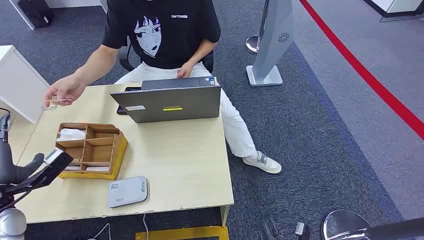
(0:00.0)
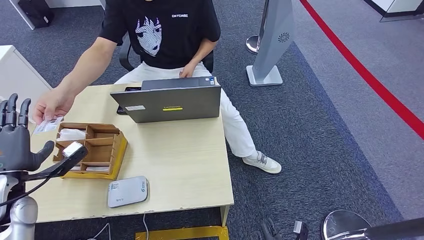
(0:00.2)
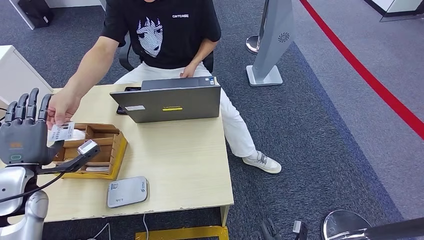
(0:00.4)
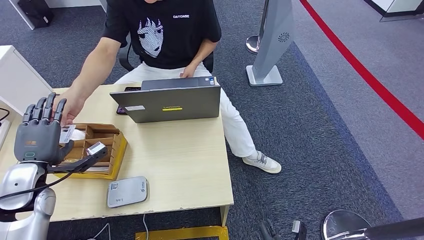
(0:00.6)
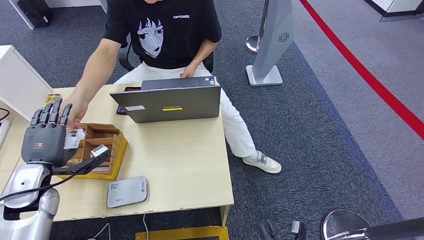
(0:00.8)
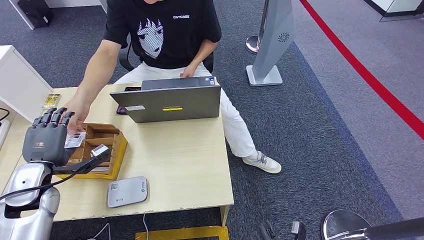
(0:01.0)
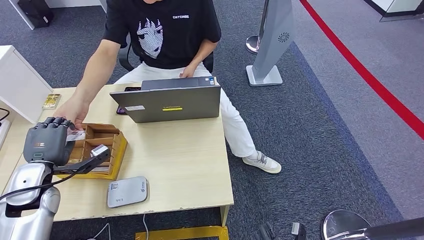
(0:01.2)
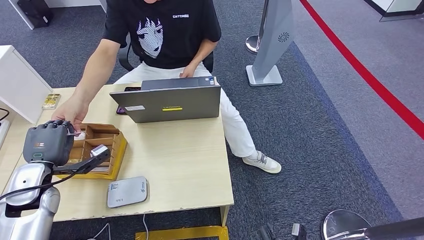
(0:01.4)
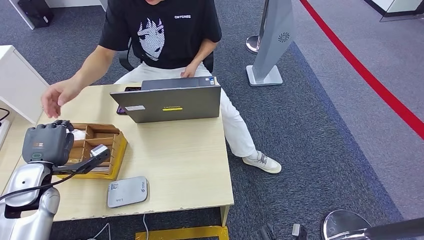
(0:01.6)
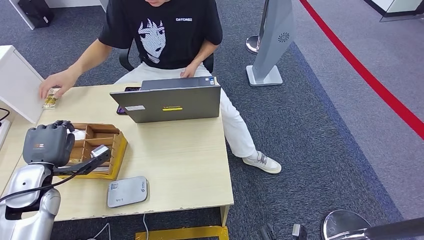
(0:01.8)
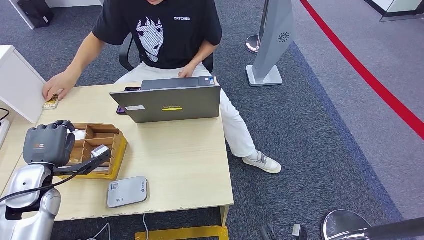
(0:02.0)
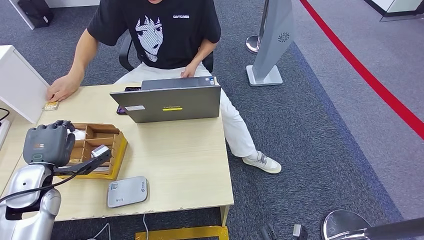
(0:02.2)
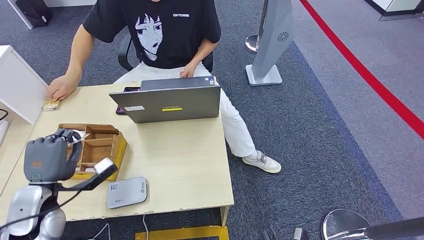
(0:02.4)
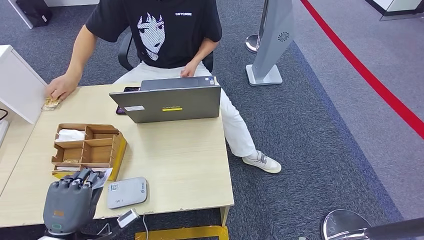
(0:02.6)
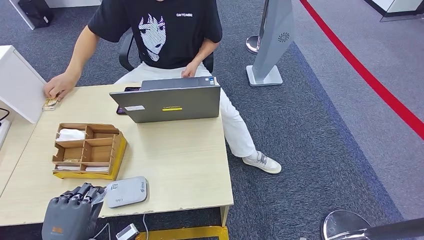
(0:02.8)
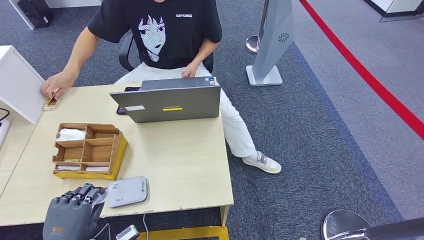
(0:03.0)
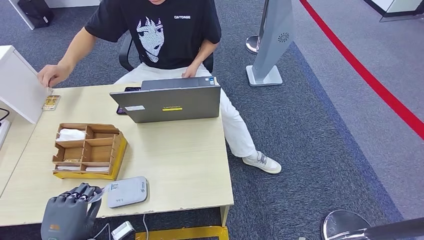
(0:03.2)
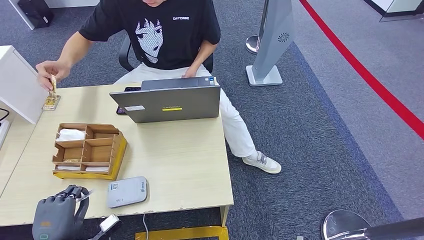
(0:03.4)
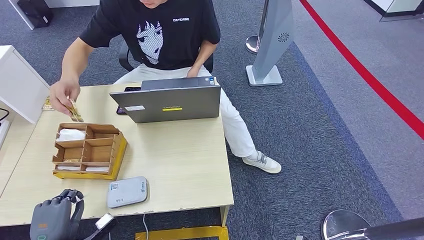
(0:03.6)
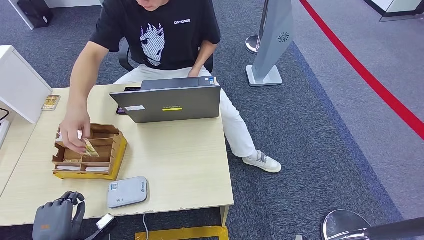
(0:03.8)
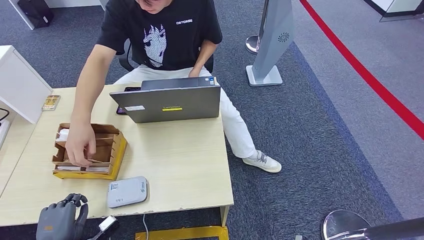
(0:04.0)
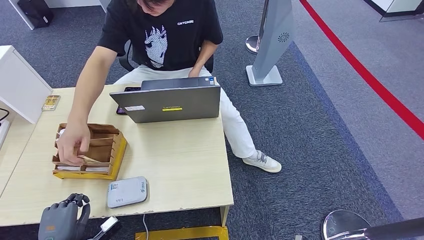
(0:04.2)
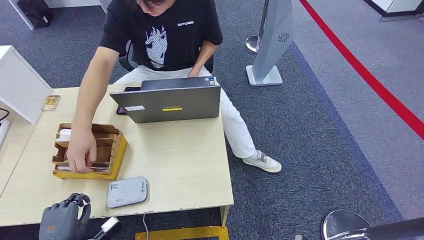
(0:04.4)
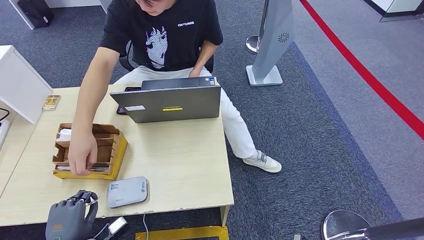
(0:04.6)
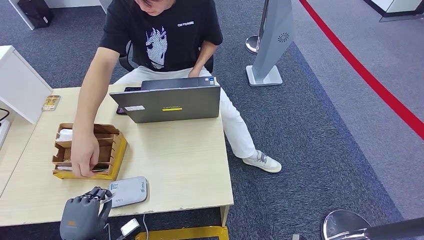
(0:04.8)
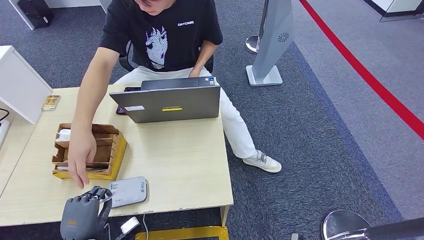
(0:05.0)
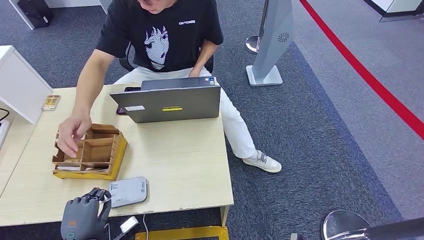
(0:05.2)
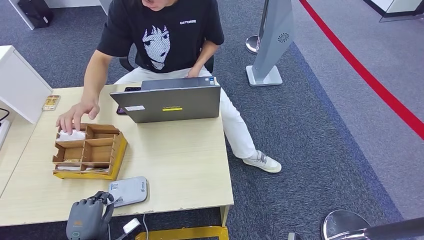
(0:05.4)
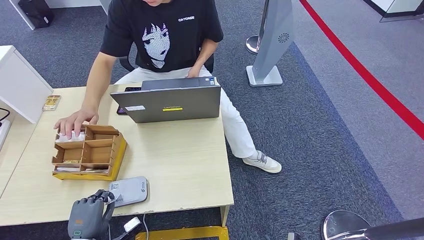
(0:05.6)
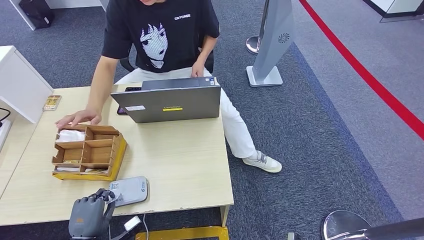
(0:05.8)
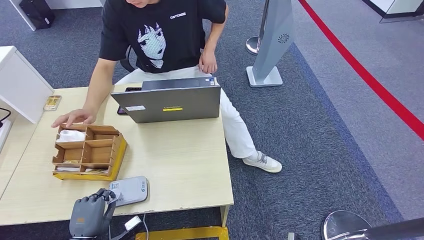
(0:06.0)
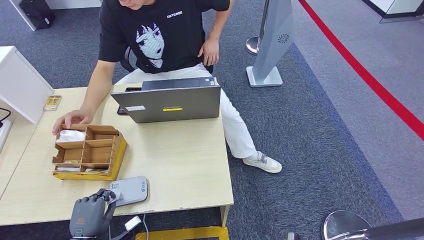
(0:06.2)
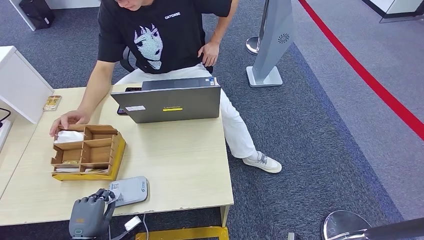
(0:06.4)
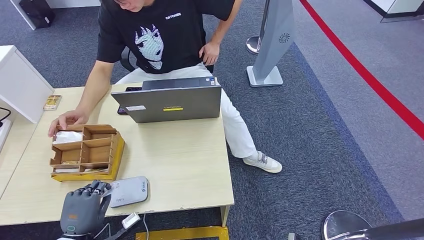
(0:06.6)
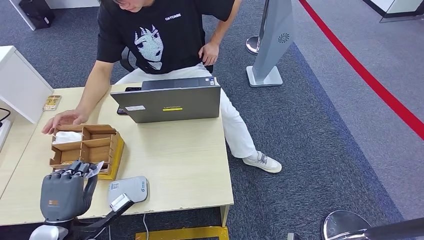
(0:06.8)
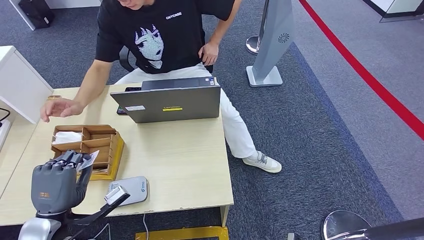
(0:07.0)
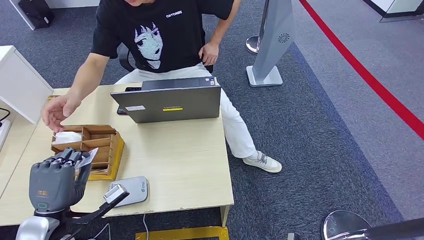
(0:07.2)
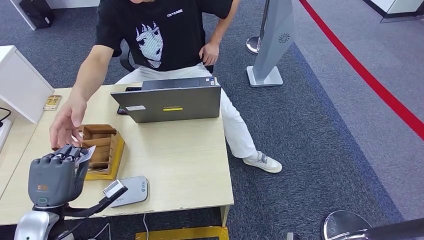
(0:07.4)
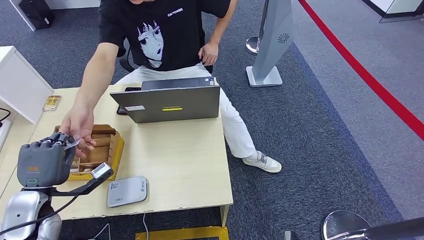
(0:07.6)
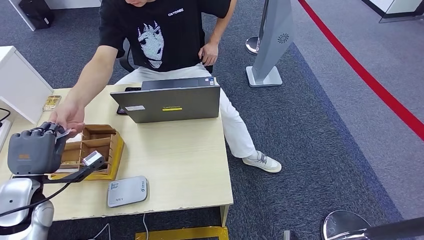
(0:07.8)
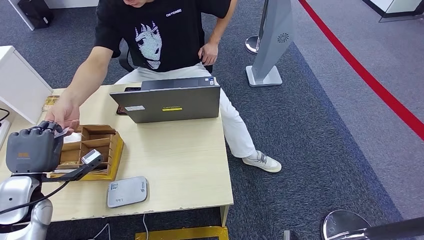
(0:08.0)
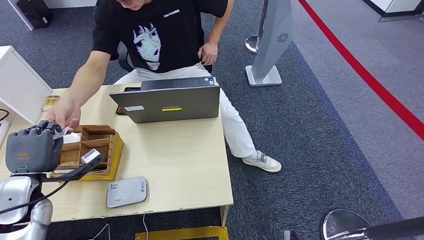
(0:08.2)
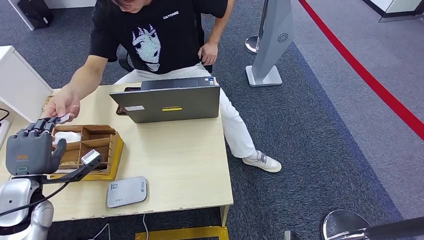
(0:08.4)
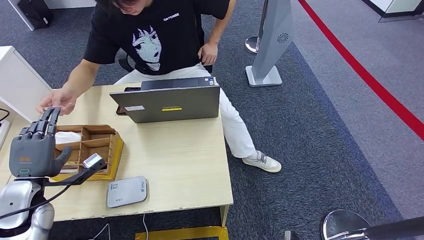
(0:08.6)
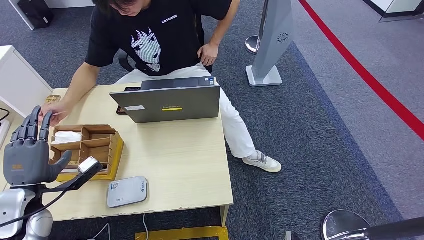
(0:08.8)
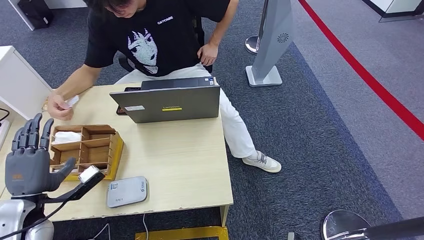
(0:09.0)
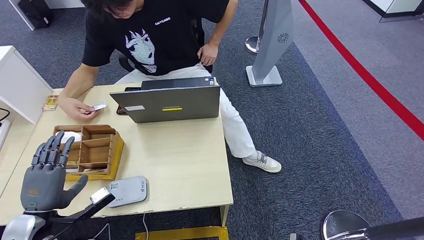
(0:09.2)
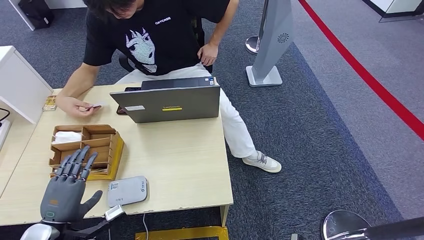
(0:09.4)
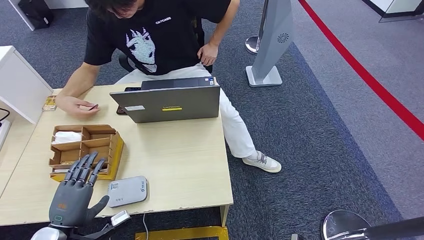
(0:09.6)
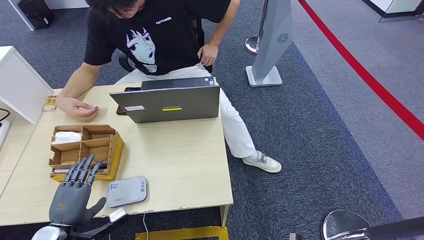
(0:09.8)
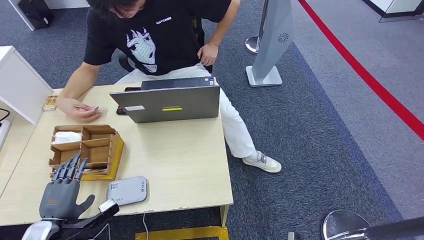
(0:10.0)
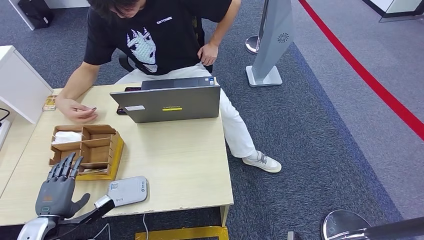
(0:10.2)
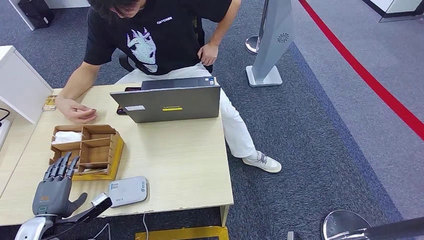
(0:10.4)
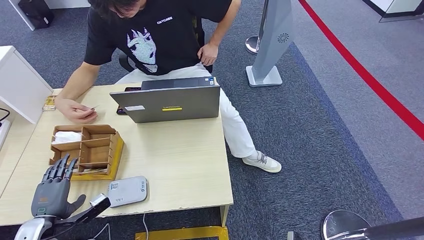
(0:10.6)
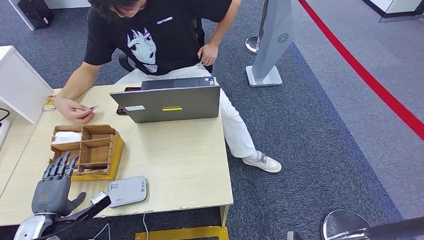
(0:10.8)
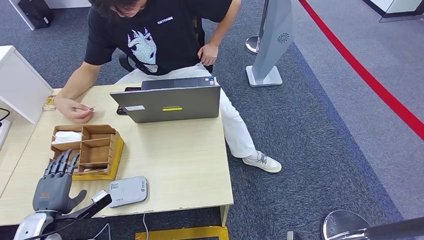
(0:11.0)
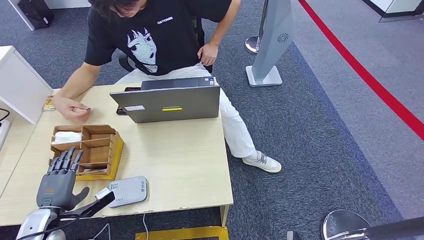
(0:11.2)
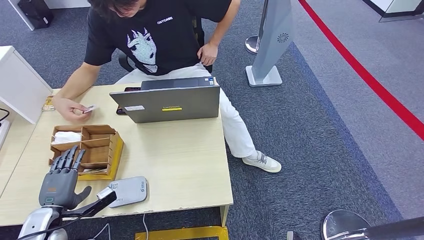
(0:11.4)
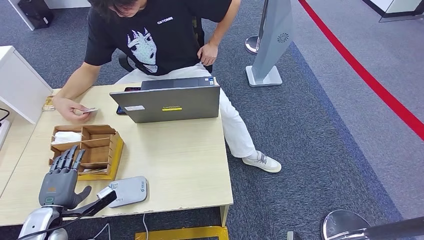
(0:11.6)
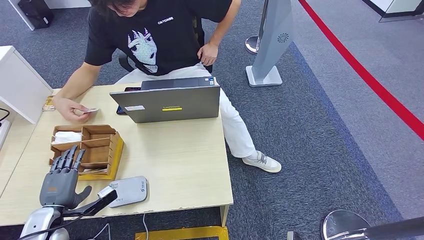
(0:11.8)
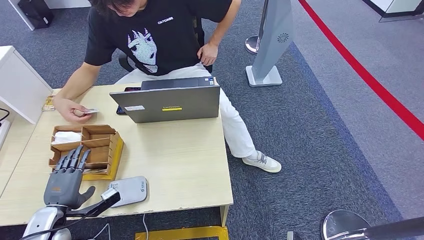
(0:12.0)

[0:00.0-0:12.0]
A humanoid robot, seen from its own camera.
Step, 0:00.0 to 0:02.6: Take the ID card from the person's hand.
Step, 0:02.8 to 0:06.4: Place the ID card on the card reader.
Step, 0:06.6 to 0:09.4: Hand the ID card to the person.
0:01.6 to 0:03.0: The left hand goes some 20 cm backward and to the right.
0:03.0 to 0:04.4: The left hand shifts about 10 cm downward and to the left.
0:04.4 to 0:06.0: The left hand changes place by about 5 cm.
0:06.0 to 0:07.6: The left hand shifts roughly 20 cm upward and forward.
0:07.6 to 0:09.0: The hands stay close to where they were, moving slightly.
0:09.0 to 0:10.4: The left hand travels downward by some 10 cm.
0:10.4 to 0:12.0: The hands move only a little.

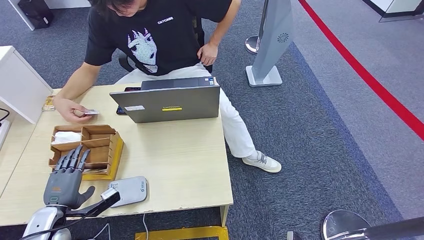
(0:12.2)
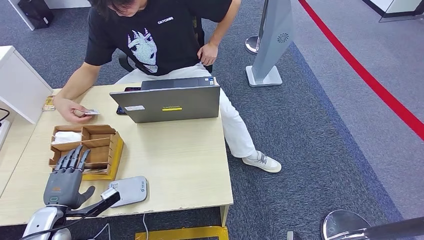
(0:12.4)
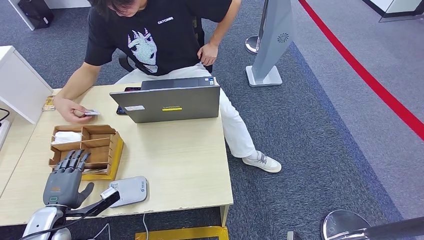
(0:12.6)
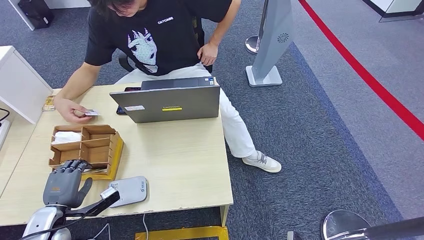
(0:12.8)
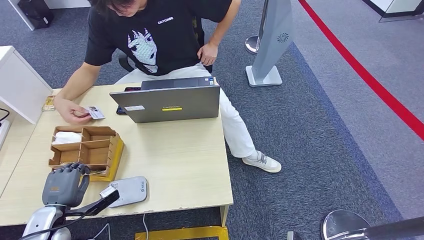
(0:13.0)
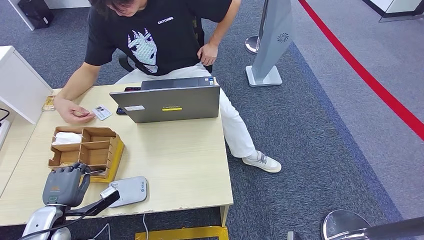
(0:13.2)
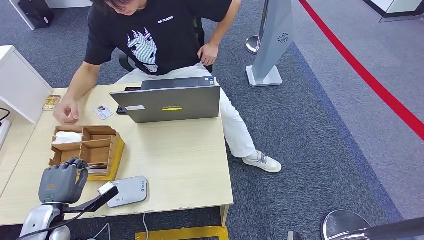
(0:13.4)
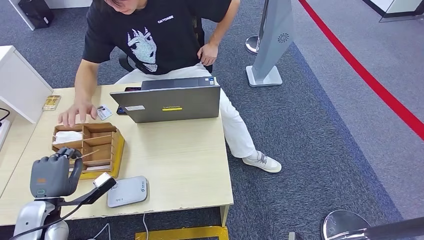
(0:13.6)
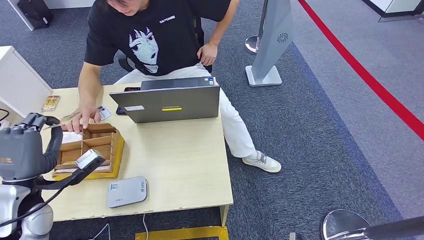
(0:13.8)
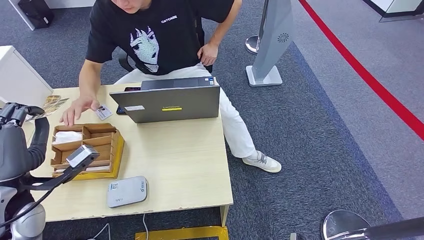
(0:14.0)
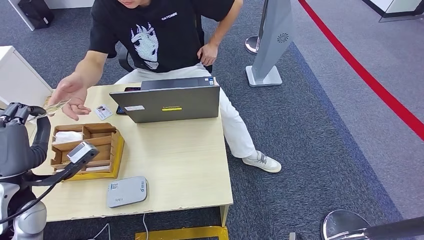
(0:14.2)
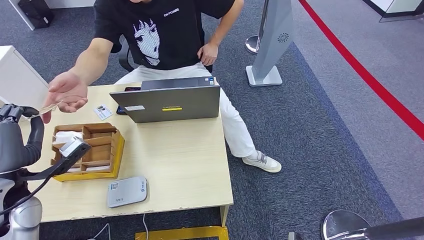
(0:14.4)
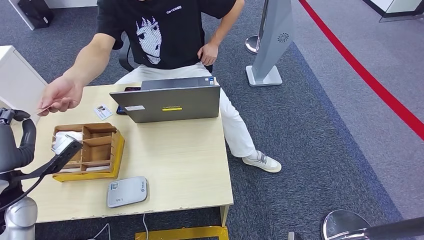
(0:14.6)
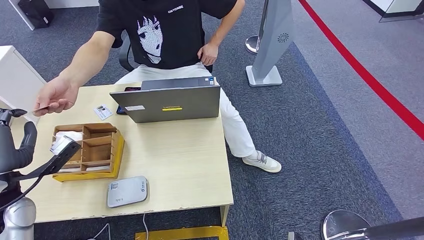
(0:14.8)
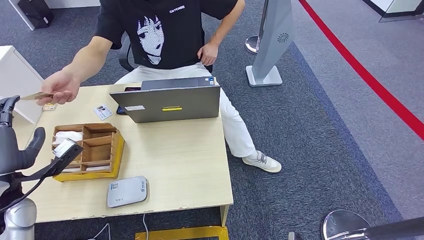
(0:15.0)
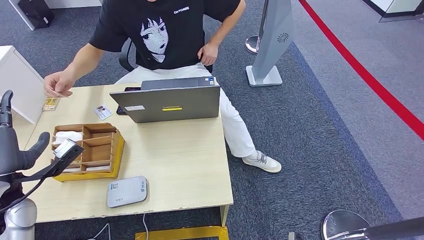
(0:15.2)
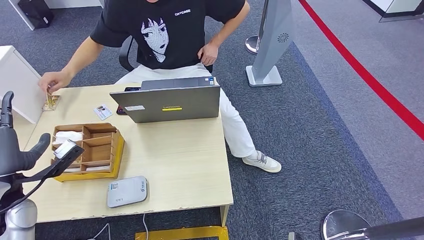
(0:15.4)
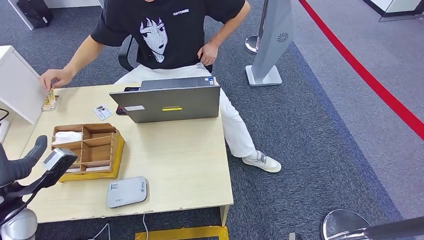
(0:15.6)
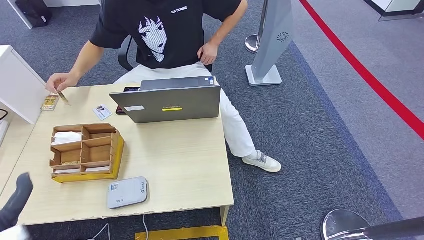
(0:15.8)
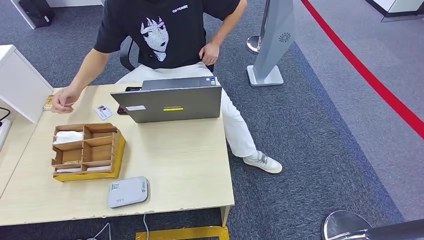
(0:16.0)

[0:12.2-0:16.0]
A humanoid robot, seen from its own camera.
Step, 0:12.8 to 0:13.6: Pick up the room key from the key card box.
Step, 0:13.8 to 0:16.0: Hand the room key to the person.
0:12.2 to 0:13.4: There are only small adjustments of the hands.
0:13.4 to 0:14.8: The left hand heads upward, covering roughly 15 cm.
0:14.8 to 0:16.0: The left hand travels backward by roughly 15 cm.
